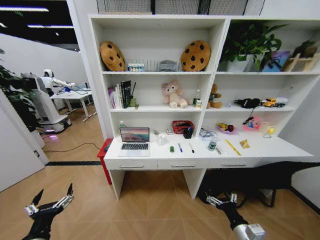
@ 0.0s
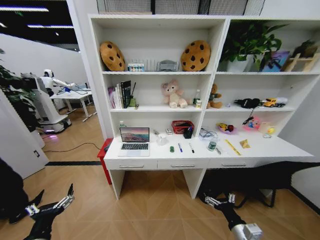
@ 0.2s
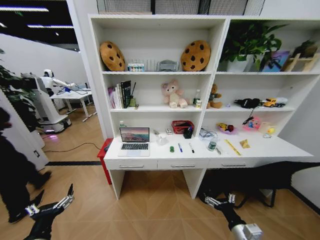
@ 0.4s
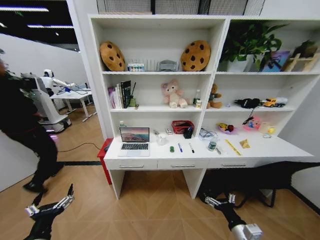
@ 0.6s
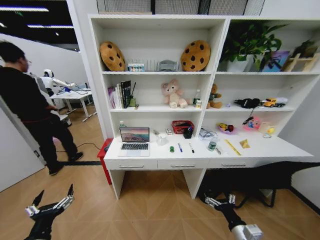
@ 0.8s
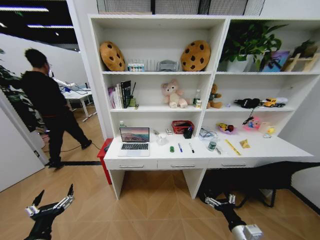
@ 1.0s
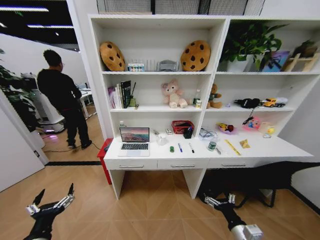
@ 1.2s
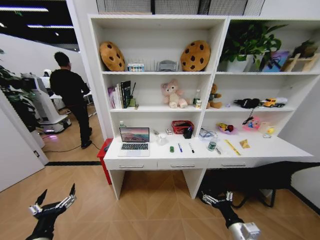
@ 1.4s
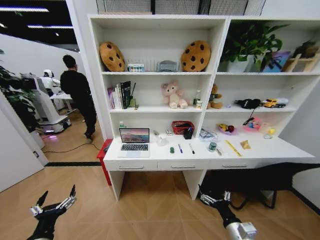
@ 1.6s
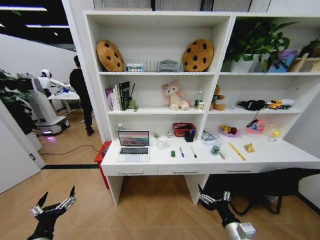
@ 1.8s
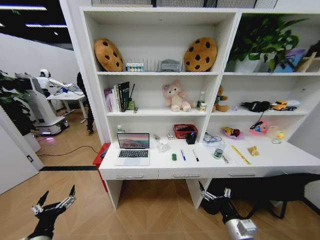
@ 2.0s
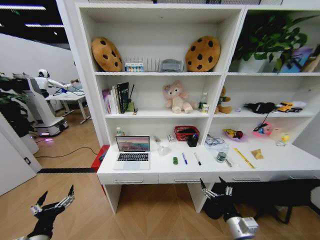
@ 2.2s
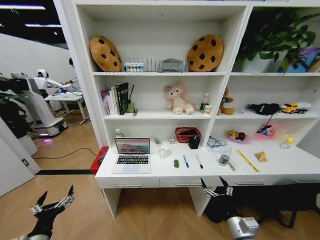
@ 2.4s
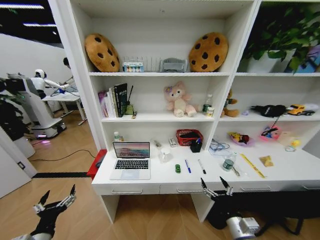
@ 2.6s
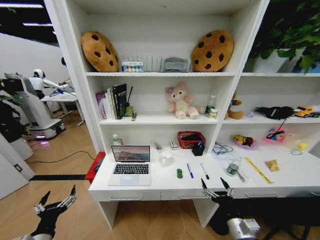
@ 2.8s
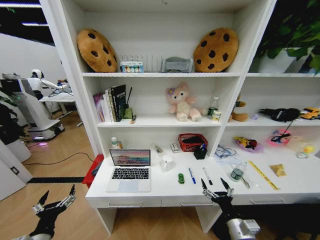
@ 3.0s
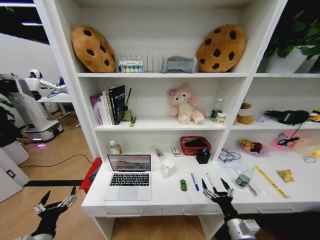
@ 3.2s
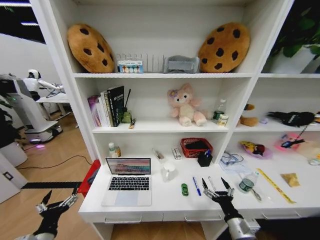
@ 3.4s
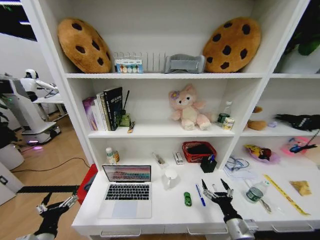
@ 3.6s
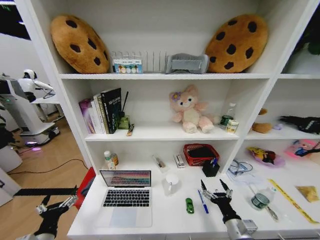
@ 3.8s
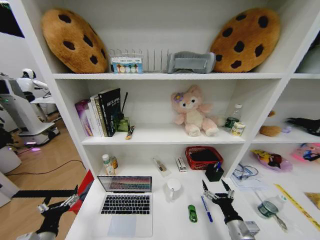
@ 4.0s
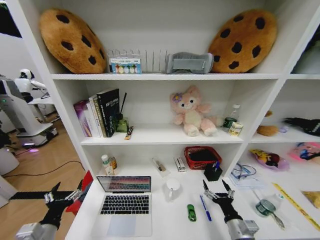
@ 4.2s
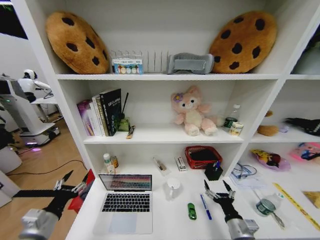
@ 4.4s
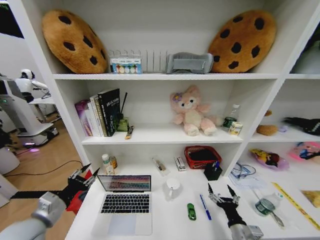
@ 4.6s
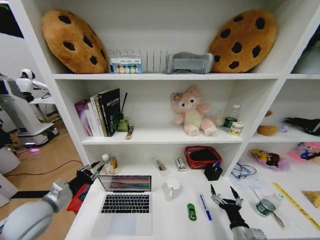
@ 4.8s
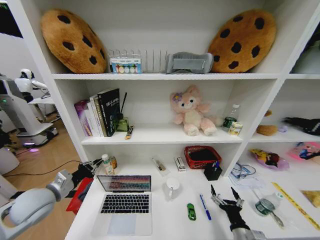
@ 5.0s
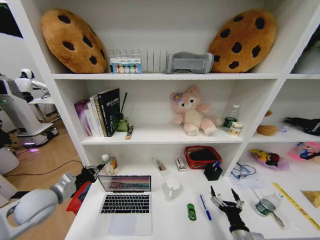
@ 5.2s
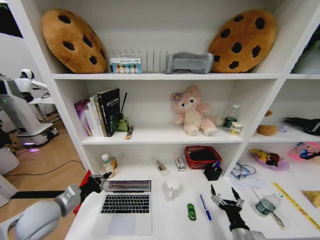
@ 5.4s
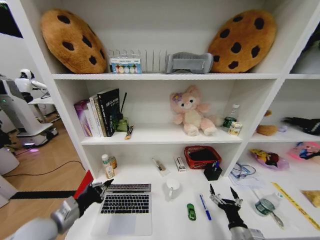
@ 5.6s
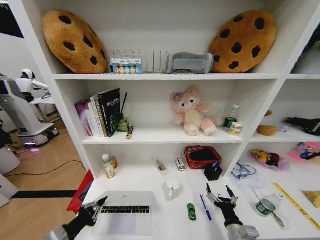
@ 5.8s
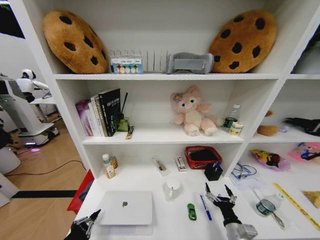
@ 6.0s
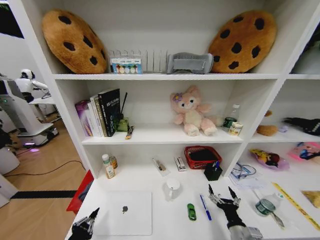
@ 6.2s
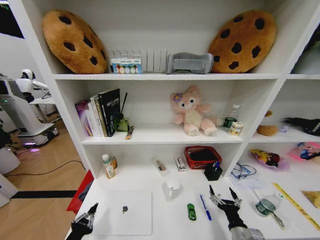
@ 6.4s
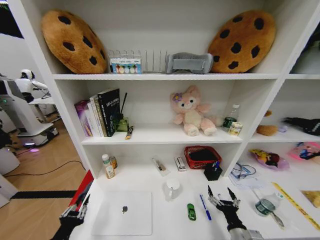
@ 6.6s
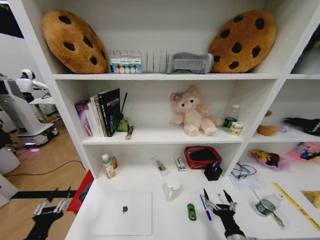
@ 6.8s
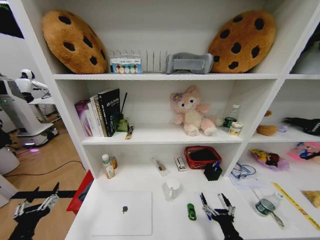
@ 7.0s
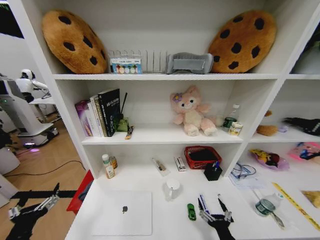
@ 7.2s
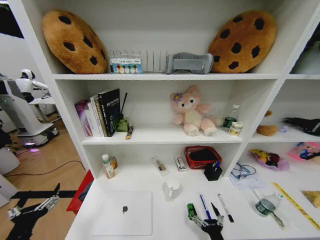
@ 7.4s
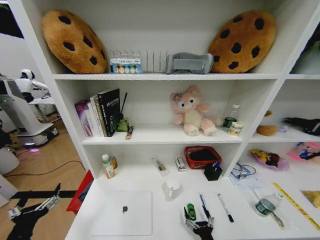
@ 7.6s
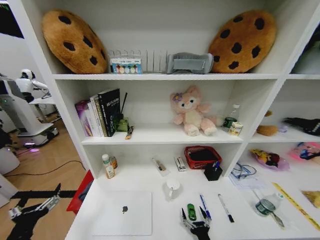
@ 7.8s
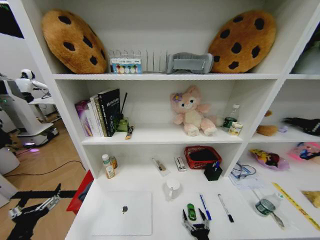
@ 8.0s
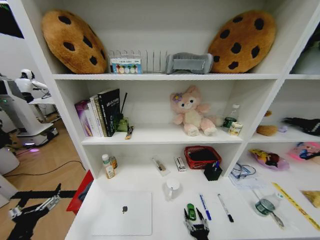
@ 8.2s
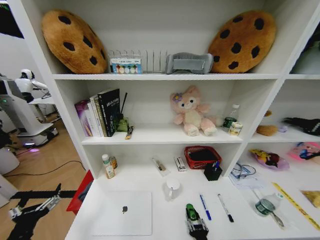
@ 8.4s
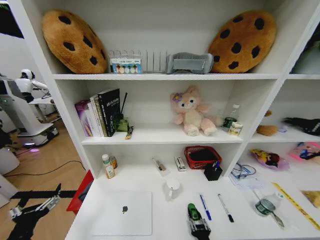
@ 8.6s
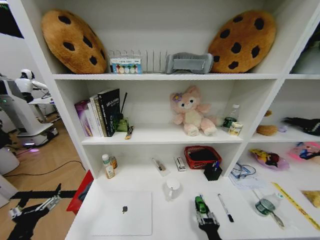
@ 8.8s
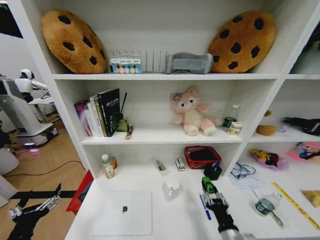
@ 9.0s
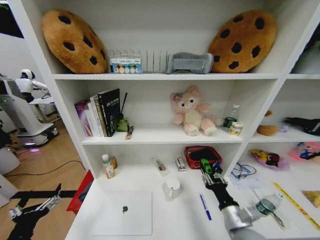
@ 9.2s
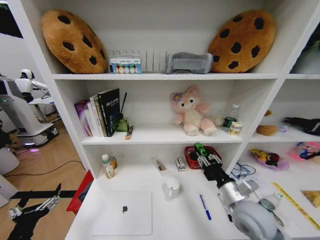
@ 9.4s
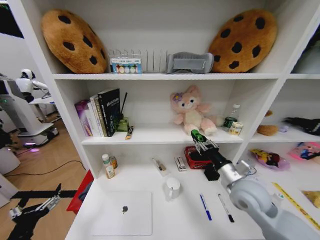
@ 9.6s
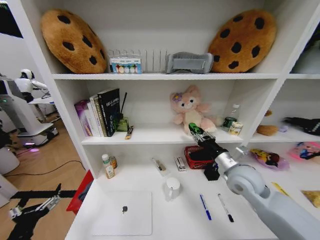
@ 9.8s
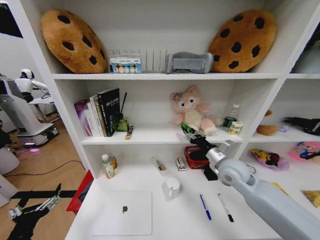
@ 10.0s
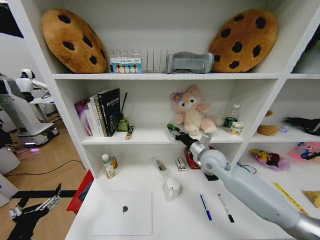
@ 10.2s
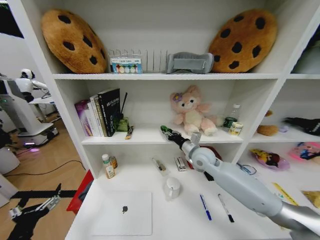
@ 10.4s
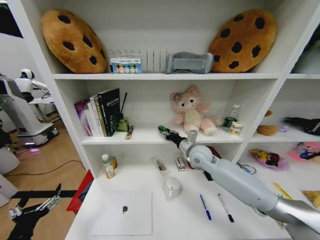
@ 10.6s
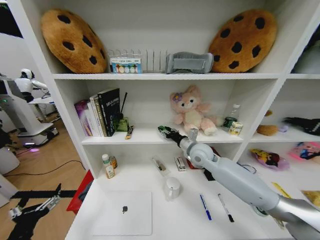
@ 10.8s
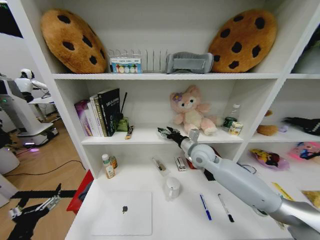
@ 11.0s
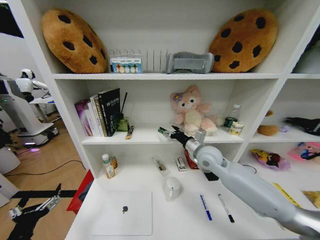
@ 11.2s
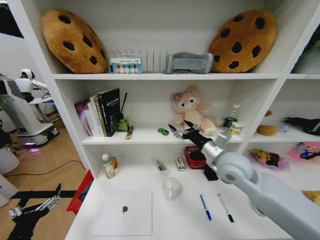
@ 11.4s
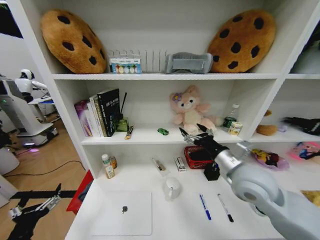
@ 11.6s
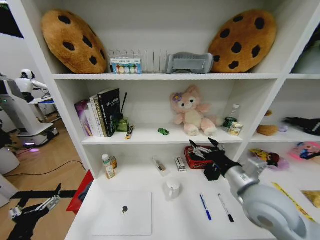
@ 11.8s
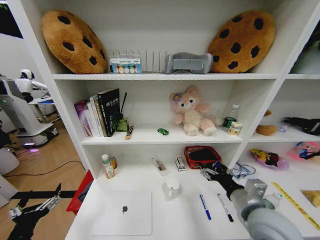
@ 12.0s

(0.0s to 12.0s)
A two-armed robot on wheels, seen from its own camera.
Task of the whole recording: Organize the objects on the table.
3.0s - 4.4s: The left gripper is displaced upward by approximately 5 cm.
4.4s - 6.0s: The left gripper shifts some 10 cm backward and downward, and closes.
6.0s - 7.6s: The left gripper opens. Meanwhile the right gripper is displaced backward and to the left by some 10 cm.
7.6s - 9.0s: The right gripper goes roughly 10 cm upward, and closes its fingers.
9.0s - 10.4s: The right gripper moves forward and upward, about 35 cm.
10.4s - 12.0s: The right gripper heads backward, covering approximately 25 cm, and opens its fingers.

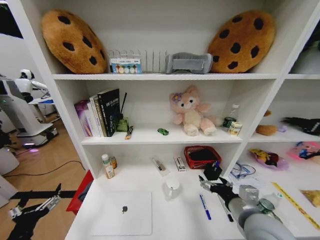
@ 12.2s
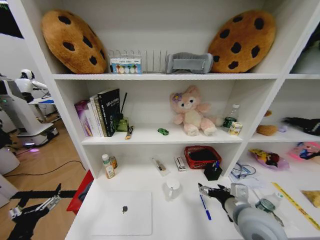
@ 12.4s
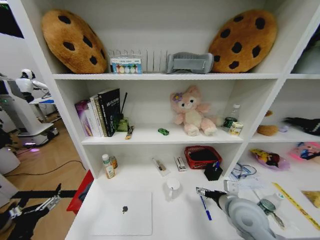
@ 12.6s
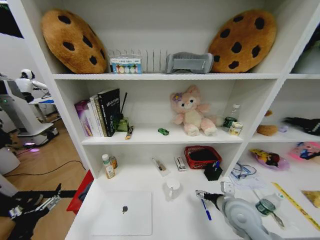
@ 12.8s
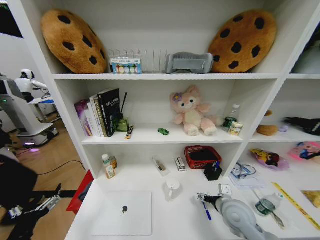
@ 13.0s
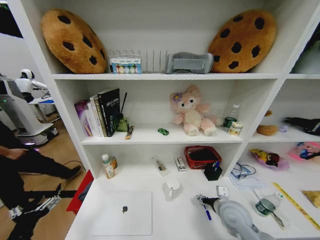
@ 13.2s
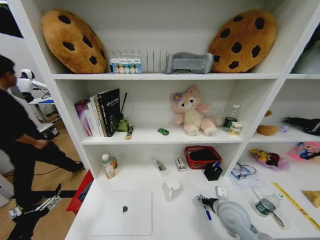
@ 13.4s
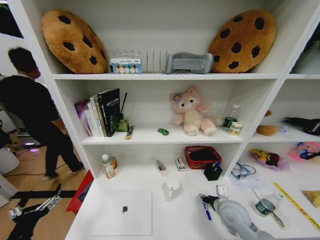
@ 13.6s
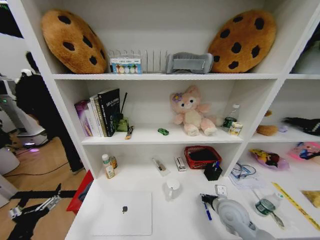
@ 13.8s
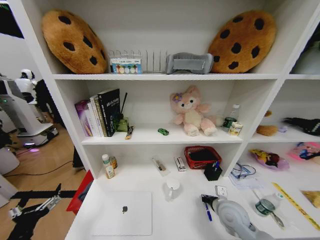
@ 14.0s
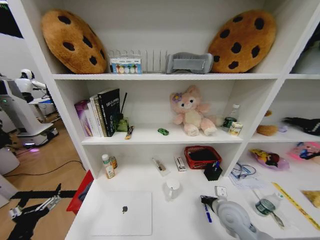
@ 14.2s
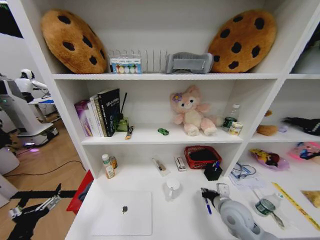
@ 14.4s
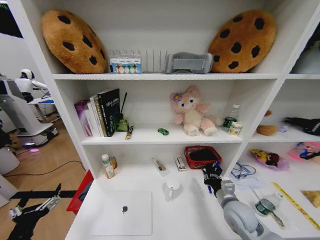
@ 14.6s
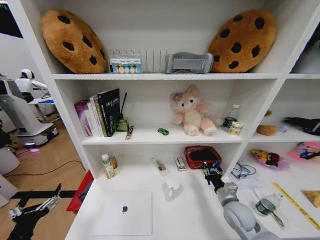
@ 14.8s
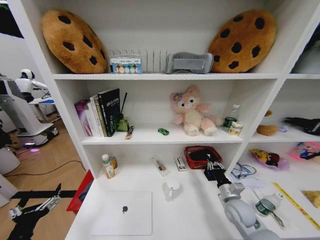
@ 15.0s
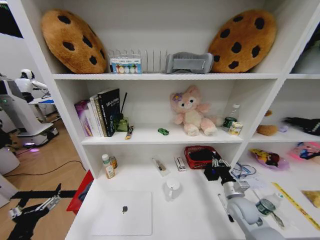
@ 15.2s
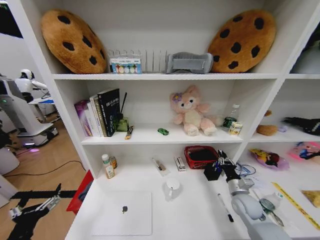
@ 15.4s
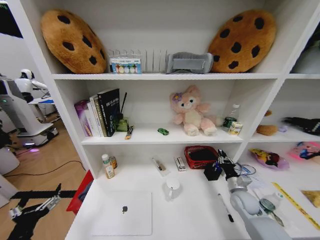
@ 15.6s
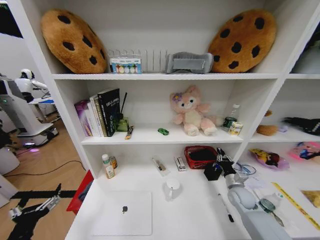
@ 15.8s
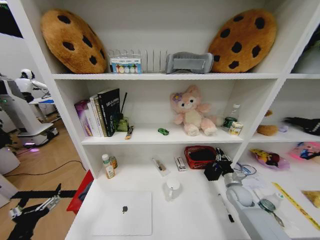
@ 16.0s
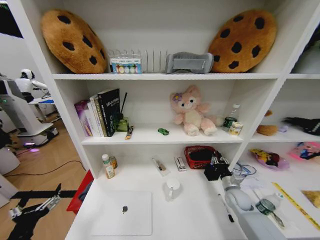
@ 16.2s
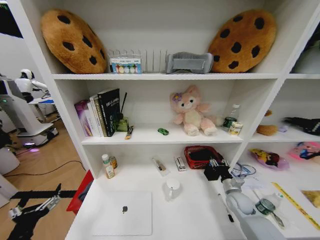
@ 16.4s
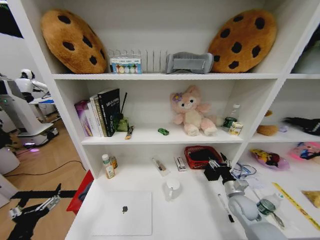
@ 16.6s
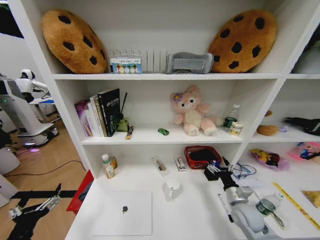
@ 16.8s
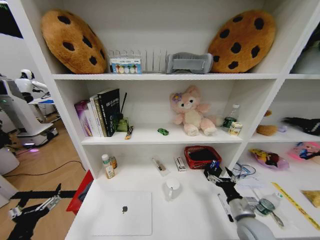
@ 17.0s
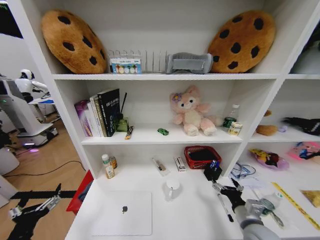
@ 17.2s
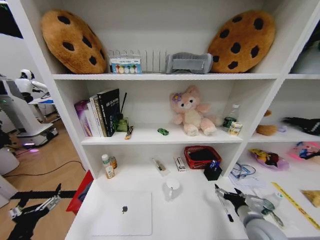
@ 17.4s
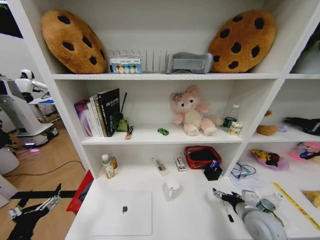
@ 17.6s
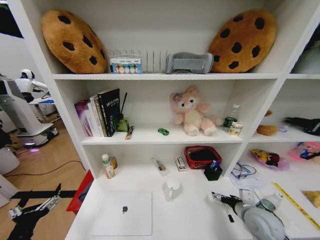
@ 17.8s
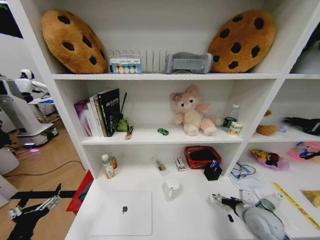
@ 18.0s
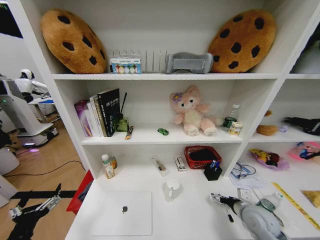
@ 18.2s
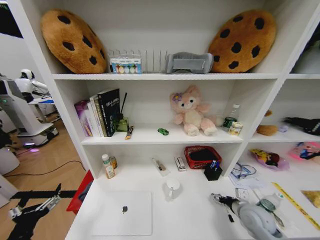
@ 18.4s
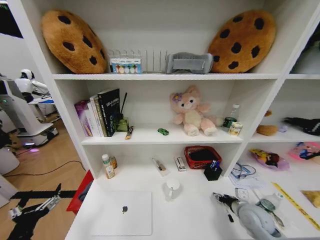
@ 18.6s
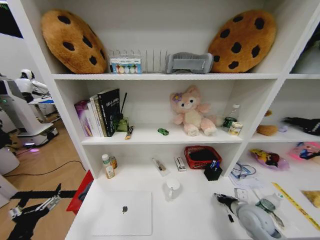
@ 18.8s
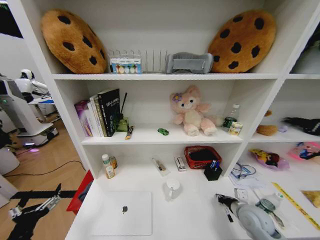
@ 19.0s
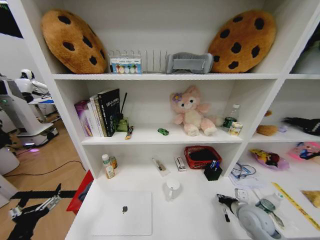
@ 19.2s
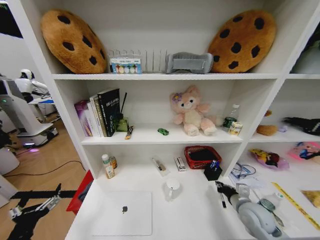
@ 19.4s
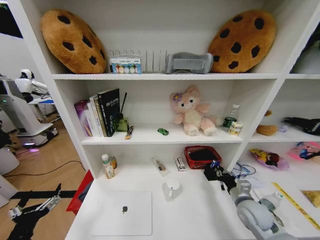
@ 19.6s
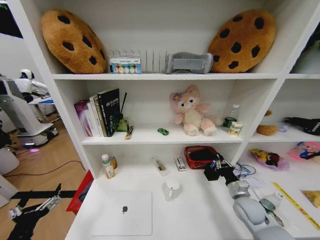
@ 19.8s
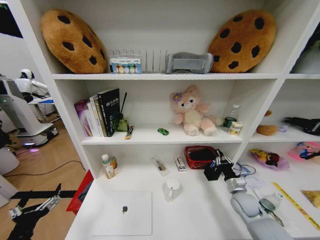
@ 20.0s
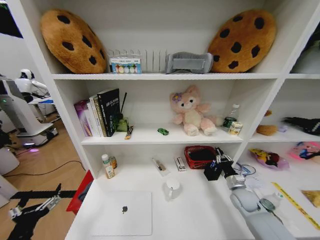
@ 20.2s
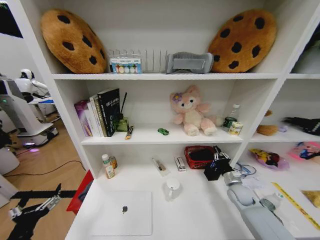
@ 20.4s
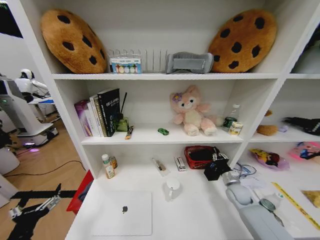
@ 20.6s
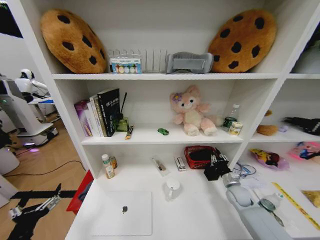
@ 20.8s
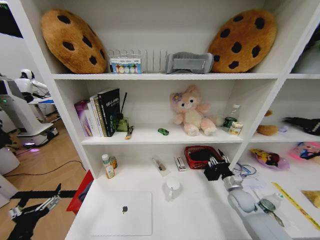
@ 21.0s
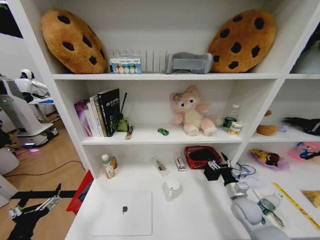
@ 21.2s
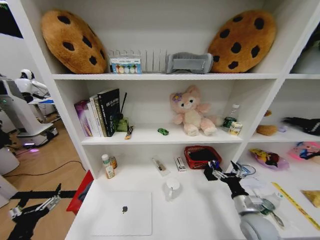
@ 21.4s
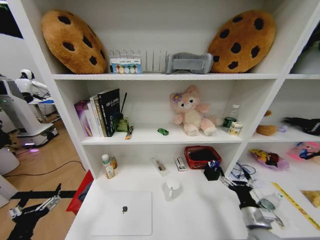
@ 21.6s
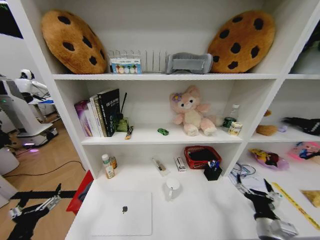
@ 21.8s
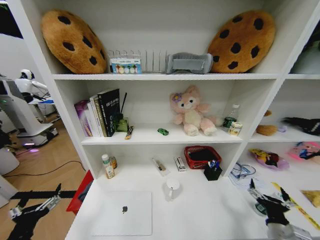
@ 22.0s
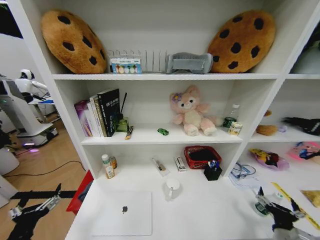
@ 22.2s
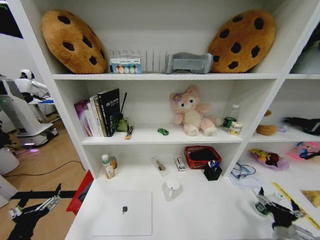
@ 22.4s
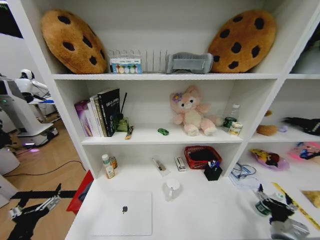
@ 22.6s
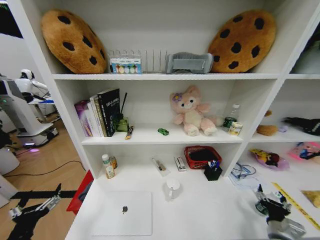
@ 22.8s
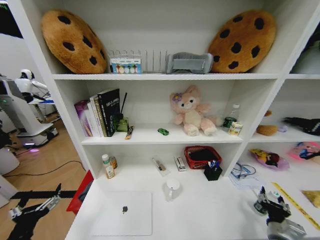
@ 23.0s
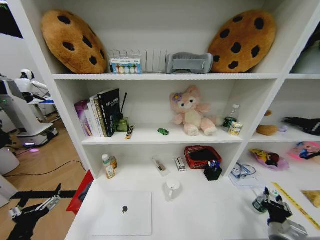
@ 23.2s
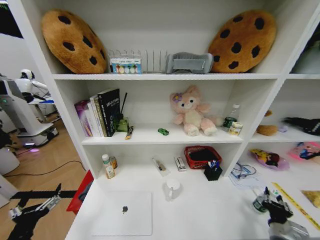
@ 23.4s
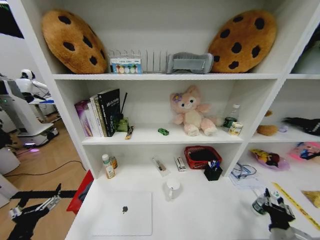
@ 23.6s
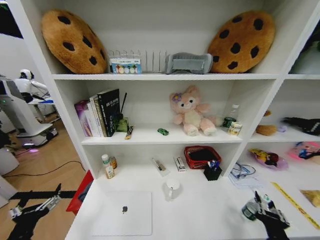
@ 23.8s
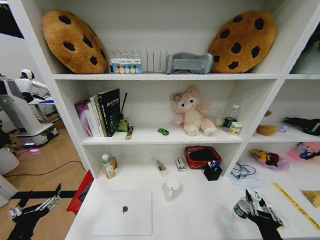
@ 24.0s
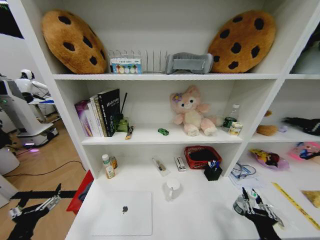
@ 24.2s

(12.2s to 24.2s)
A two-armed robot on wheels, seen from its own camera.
Task of the whole recording: Organize the objects on the table.
12.2s - 13.8s: The right gripper moves downward and forward, roughly 15 cm, and closes its fingers.
13.8s - 15.2s: The right gripper travels to the right by about 5 cm.
15.2s - 16.6s: The right gripper opens its fingers.
16.6s - 18.2s: The right gripper goes roughly 10 cm backward and upward.
18.2s - 19.8s: The right gripper ends up approximately 5 cm from where it was, and closes up.
19.8s - 21.2s: The right gripper opens its fingers.
21.2s - 22.6s: The right gripper is displaced backward by roughly 15 cm.
22.6s - 24.2s: The right gripper moves to the left and backward, about 15 cm, and closes.
